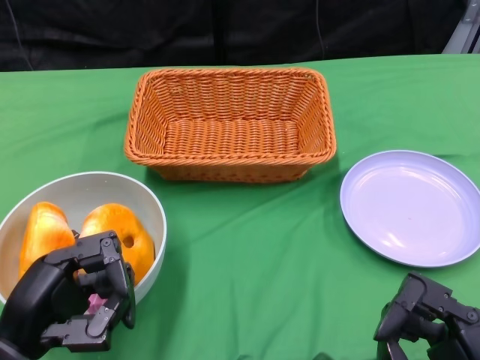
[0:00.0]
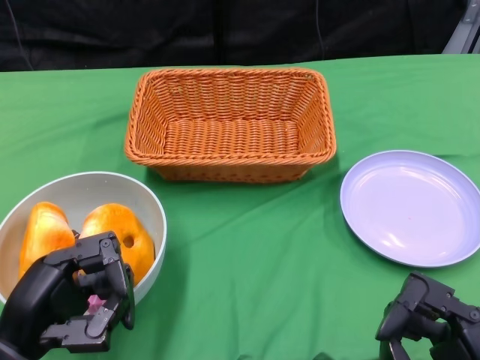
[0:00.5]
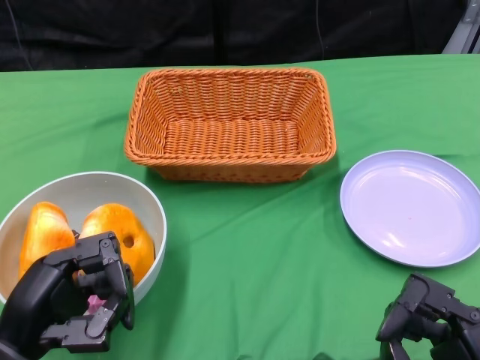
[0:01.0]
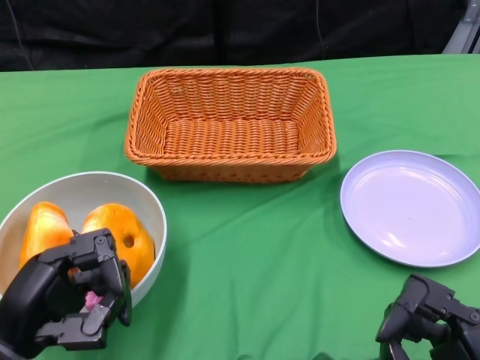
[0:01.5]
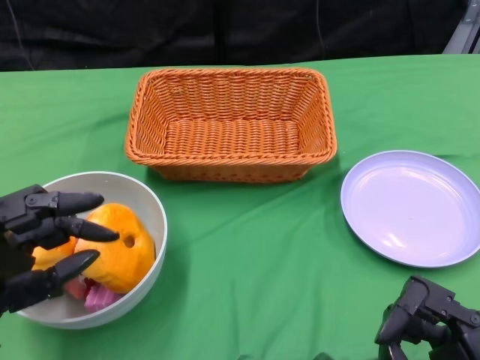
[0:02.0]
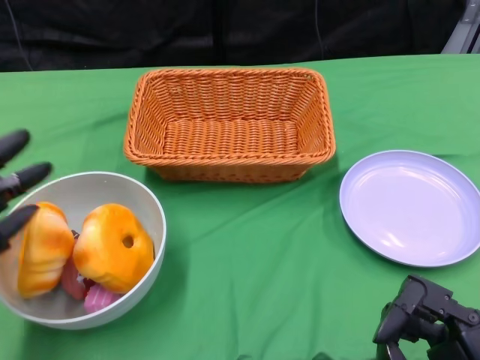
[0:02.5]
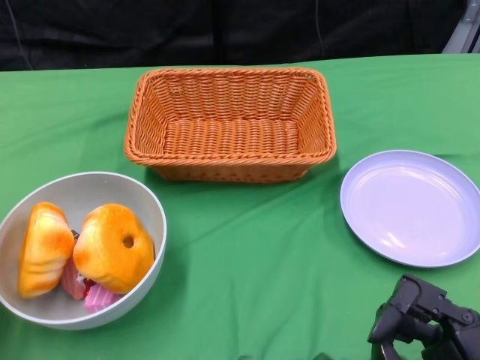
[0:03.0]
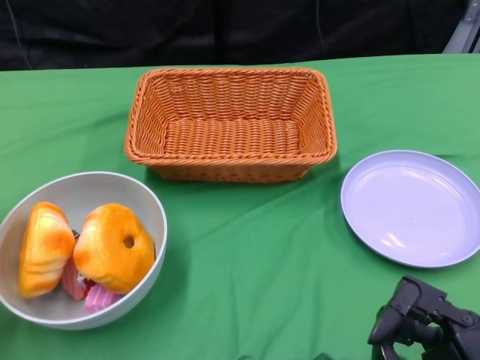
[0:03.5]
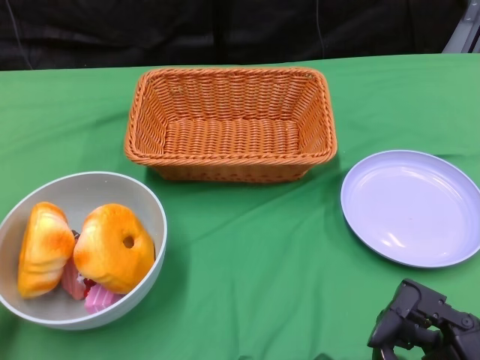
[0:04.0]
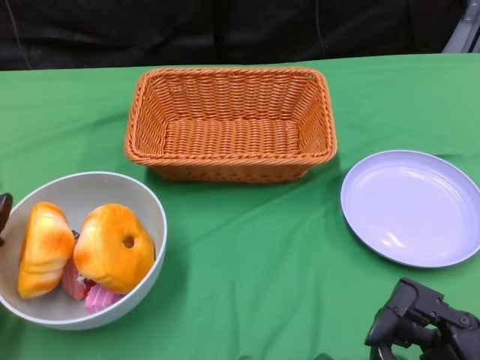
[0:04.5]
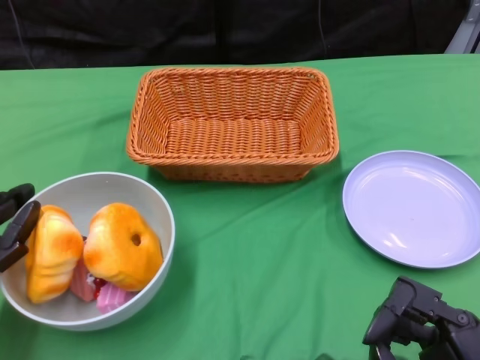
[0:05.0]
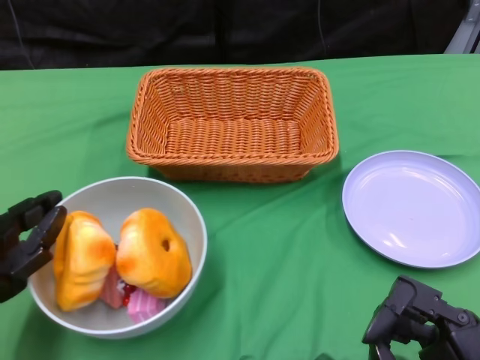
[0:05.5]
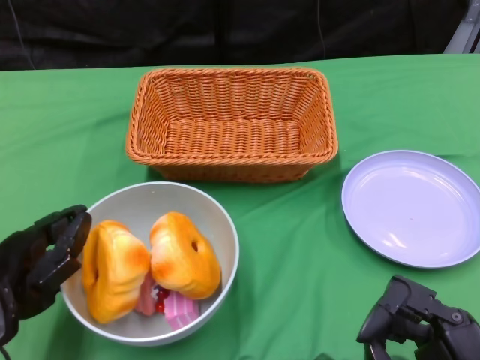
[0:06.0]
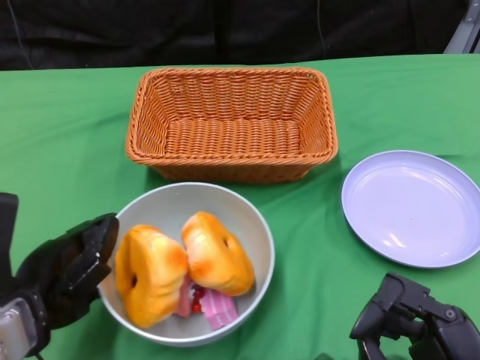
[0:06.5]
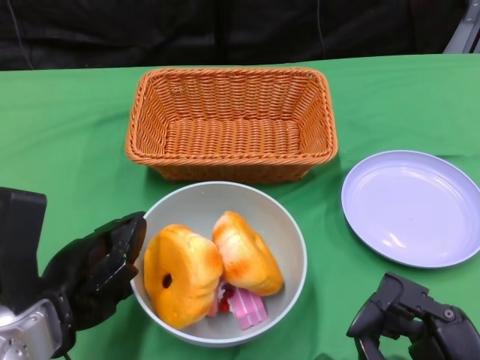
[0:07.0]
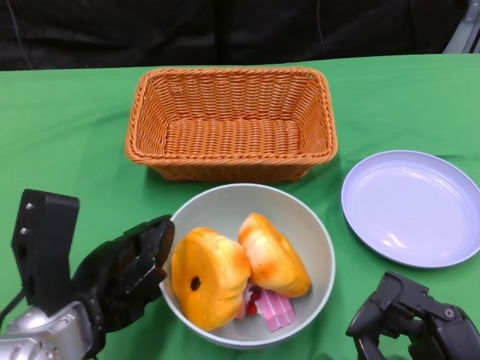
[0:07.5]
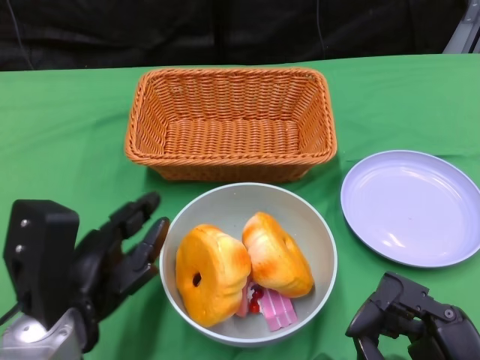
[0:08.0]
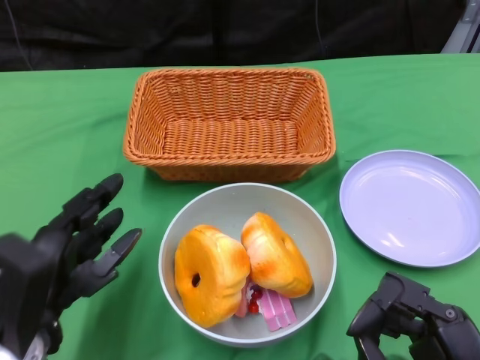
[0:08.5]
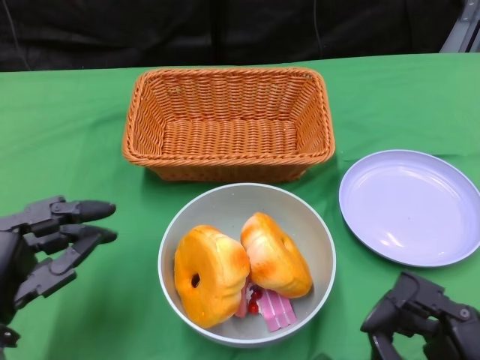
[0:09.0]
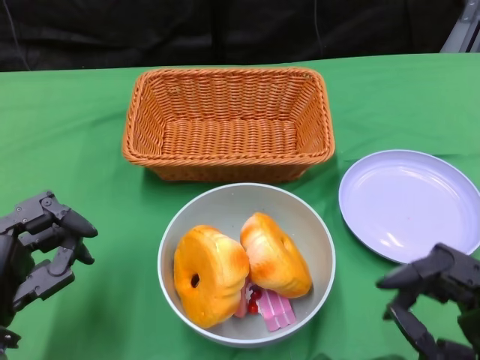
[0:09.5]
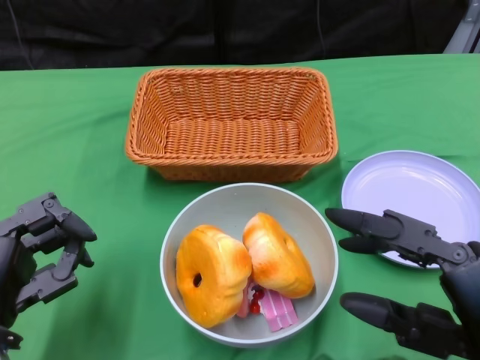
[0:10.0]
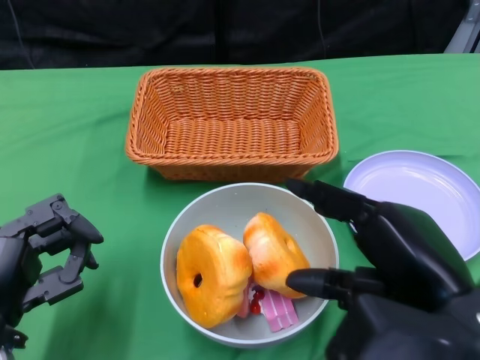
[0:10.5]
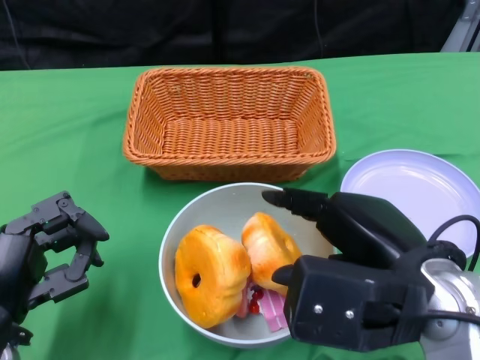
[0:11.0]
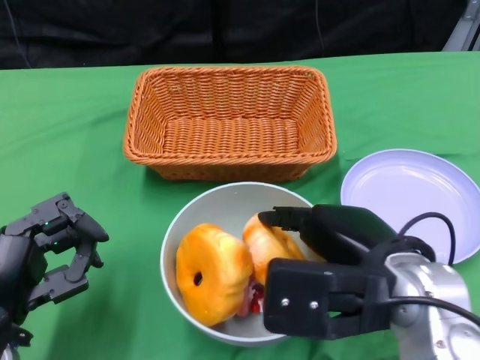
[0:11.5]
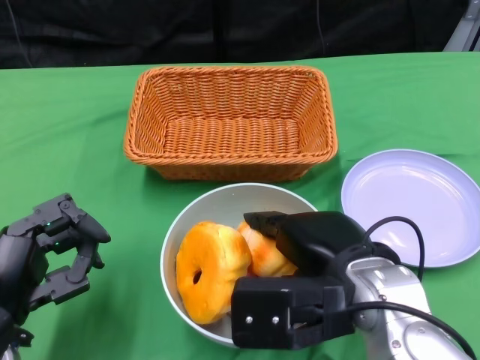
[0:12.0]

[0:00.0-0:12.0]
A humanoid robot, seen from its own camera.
Step, 0:00.0 to 0:07.5: Push the bowl to the center of the table using the left gripper.
0:02.0 to 0:04.0: The left hand is displaced forward and to the left by roughly 10 cm.
0:04.0 to 0:06.0: The left hand is displaced to the right by some 5 cm.
0:06.0 to 0:08.0: The left hand is displaced to the right by approximately 5 cm.
0:08.0 to 0:10.0: The right hand shifts roughly 10 cm upward. The left hand moves to the left, roughly 5 cm.
0:10.0 to 0:12.0: The right hand travels to the left and forward by approximately 15 cm.

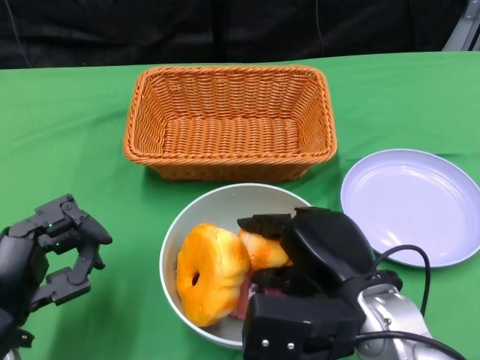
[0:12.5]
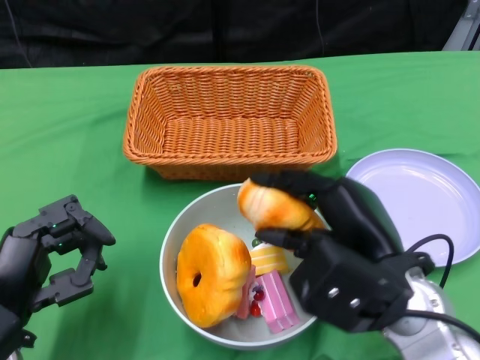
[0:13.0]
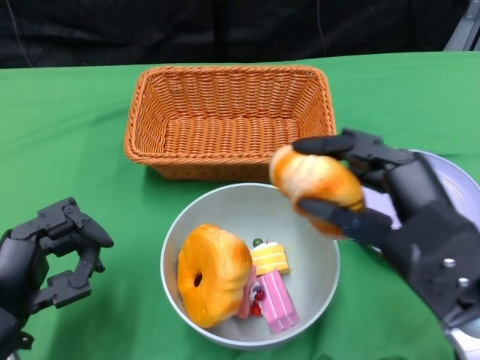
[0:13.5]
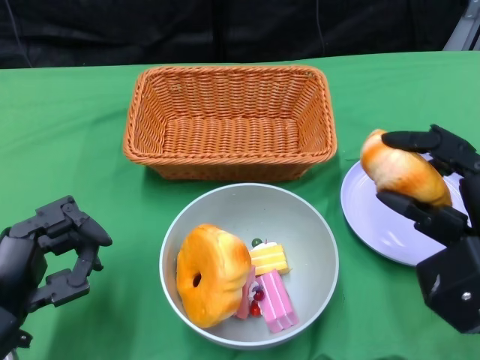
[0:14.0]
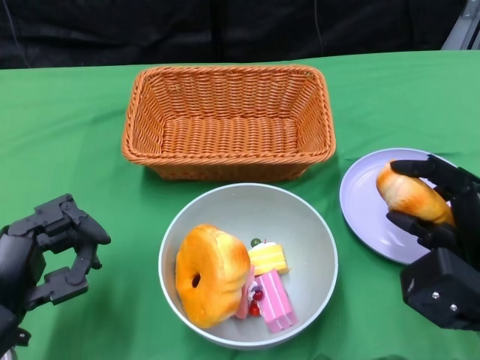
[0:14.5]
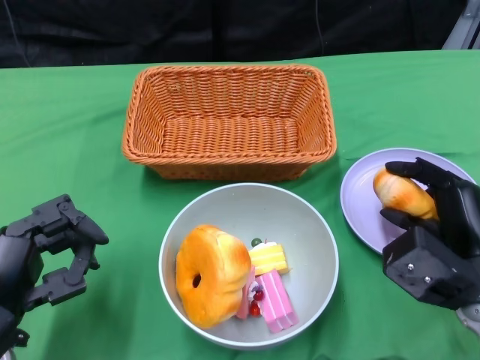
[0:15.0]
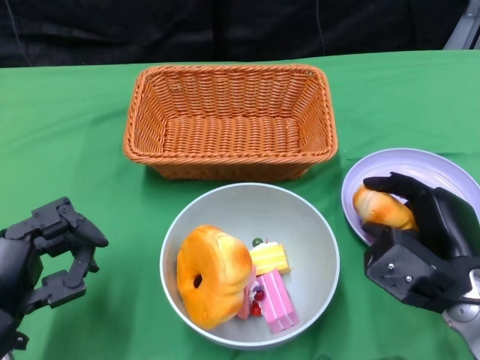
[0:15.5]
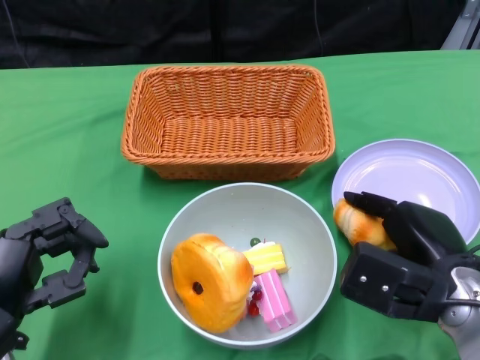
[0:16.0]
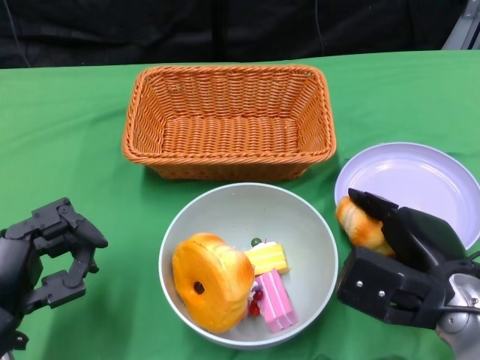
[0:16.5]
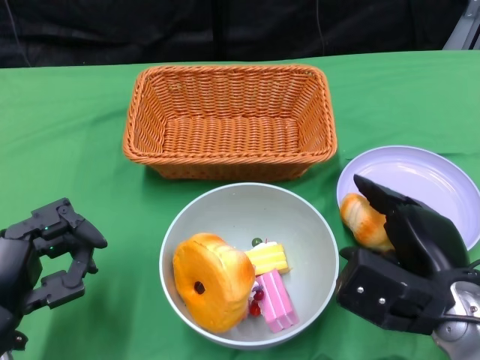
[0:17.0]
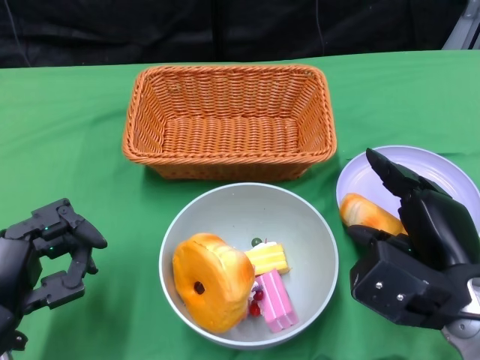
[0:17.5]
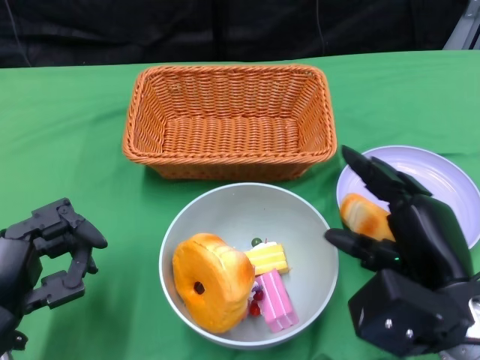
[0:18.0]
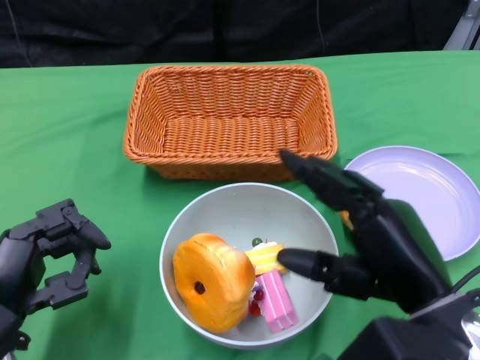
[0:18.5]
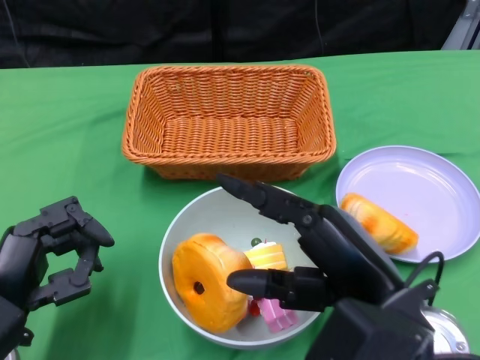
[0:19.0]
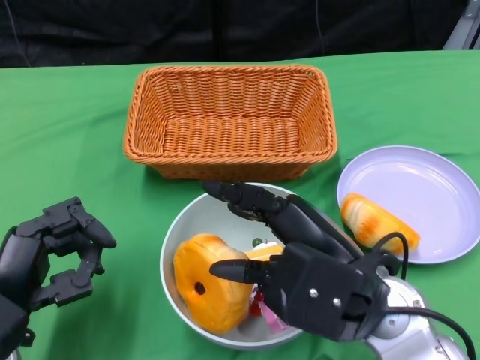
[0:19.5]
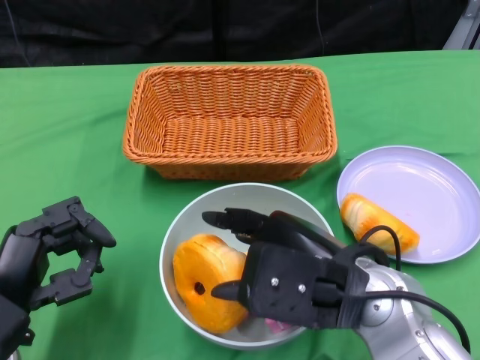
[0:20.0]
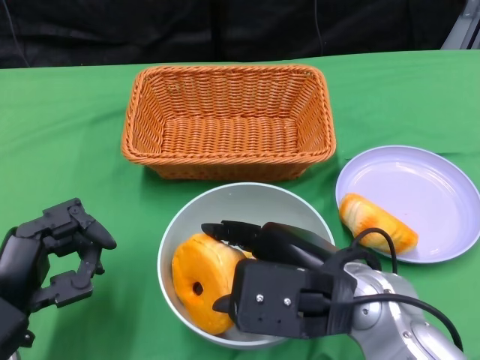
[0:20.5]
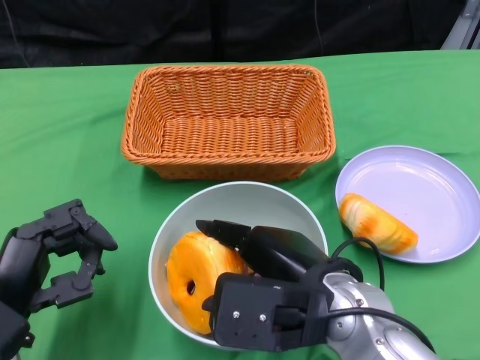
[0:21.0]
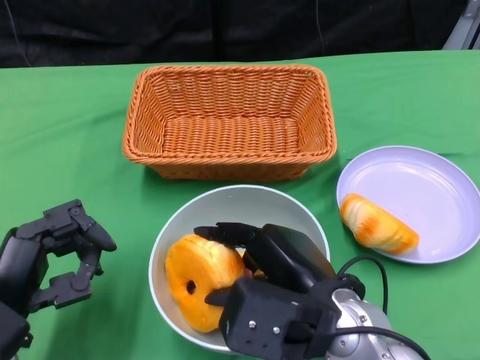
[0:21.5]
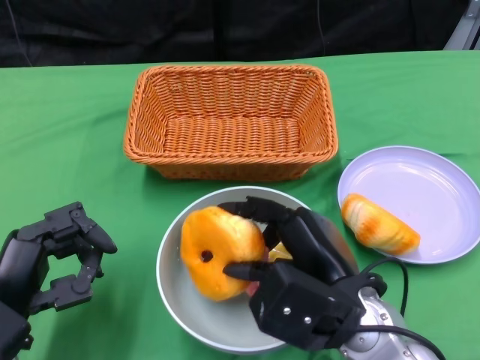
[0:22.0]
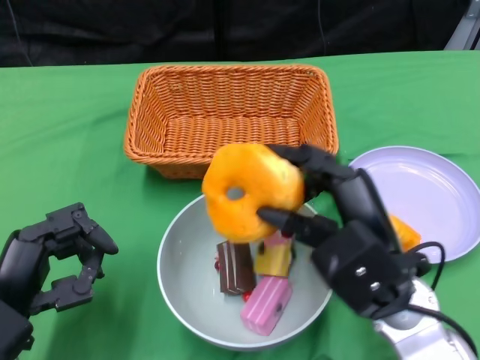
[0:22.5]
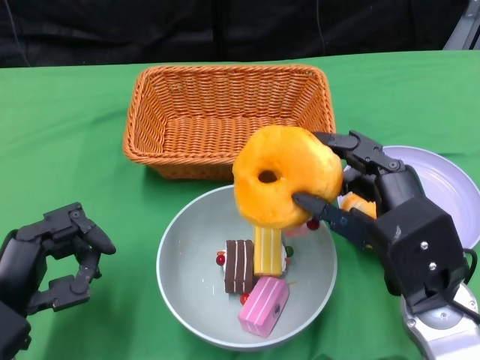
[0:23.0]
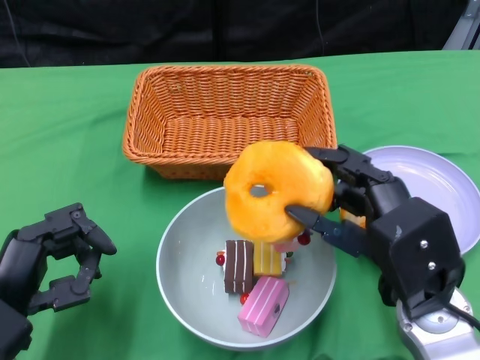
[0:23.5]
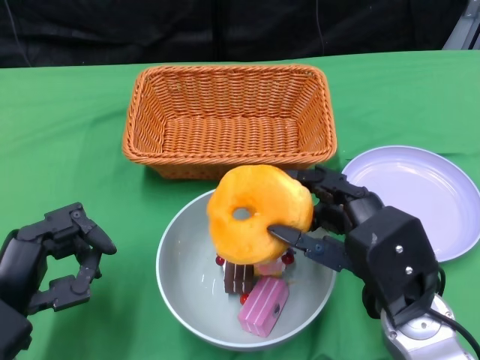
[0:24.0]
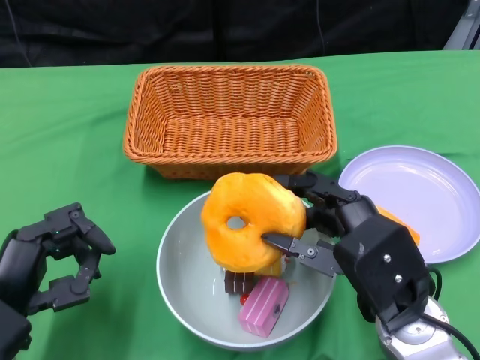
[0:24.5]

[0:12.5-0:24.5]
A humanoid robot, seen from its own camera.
0:12.5 to 0:14.5: The right hand heads to the right, covering about 10 cm.
0:16.5 to 0:18.5: The right hand shifts some 10 cm upward and backward.
0:18.5 to 0:20.5: The right hand goes roughly 5 cm to the left.
0:22.5 to 0:24.5: The hands stay close to where they were, moving slightly.

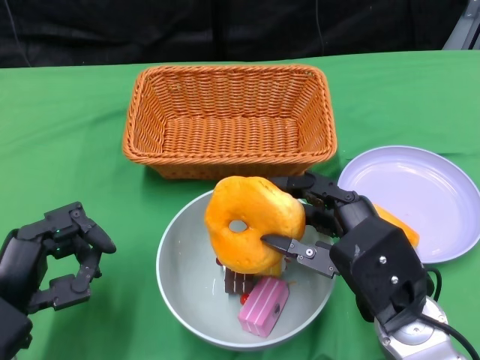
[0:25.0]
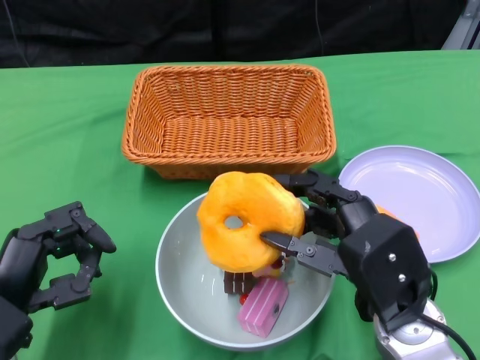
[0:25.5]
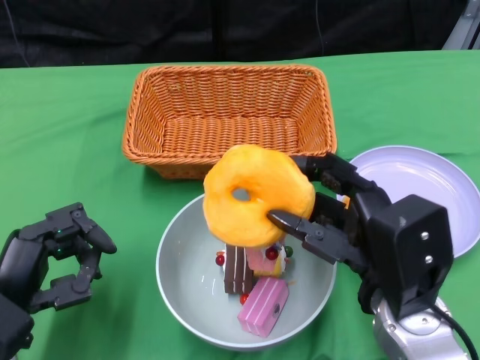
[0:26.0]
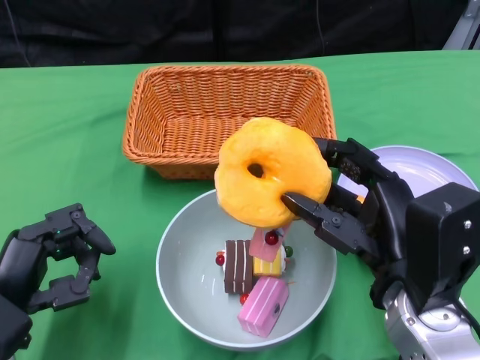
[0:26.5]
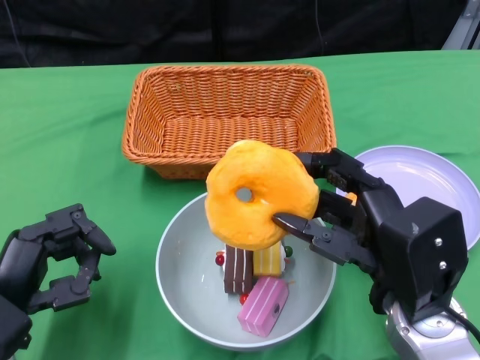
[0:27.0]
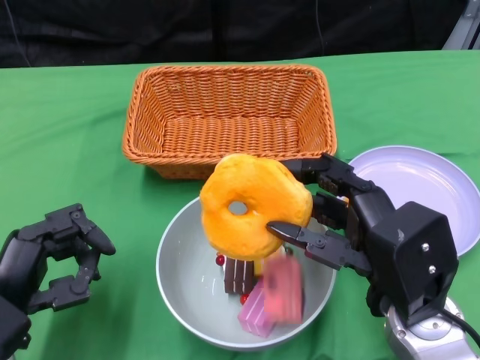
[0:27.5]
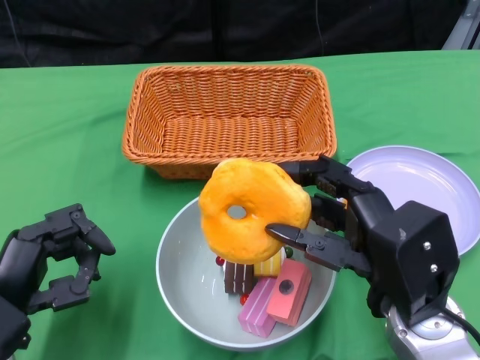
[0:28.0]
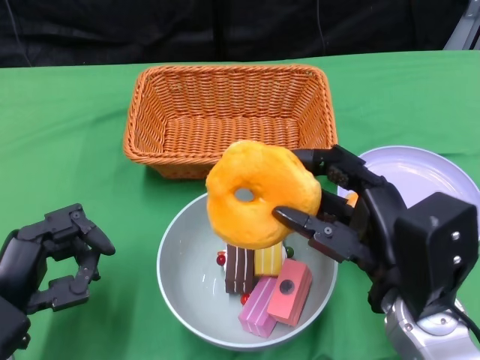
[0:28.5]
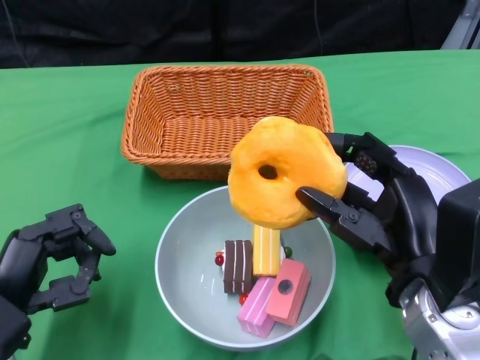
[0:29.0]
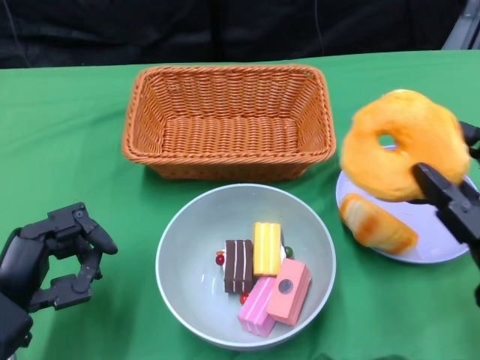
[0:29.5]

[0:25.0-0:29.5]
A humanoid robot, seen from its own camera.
0:27.0 to 0:29.5: The right hand shifts roughly 10 cm to the right.
